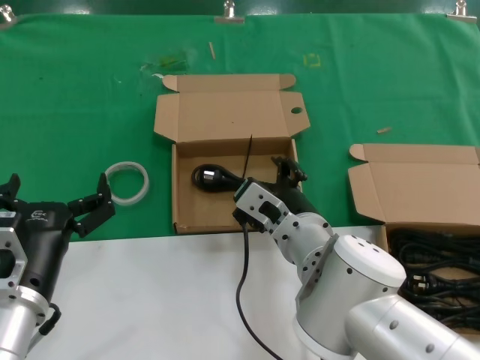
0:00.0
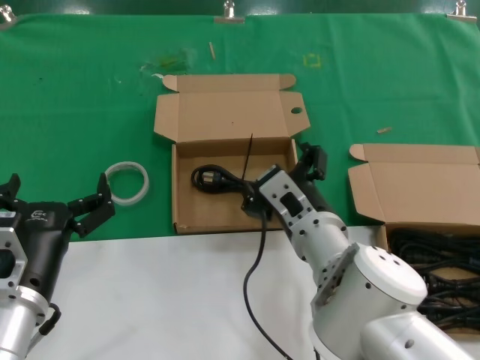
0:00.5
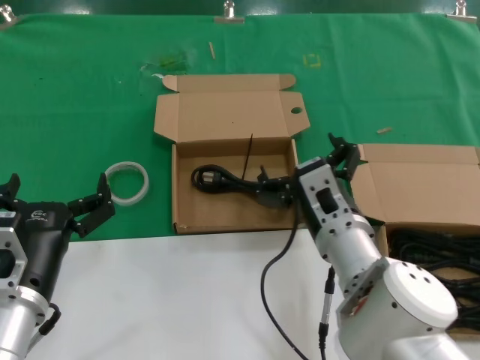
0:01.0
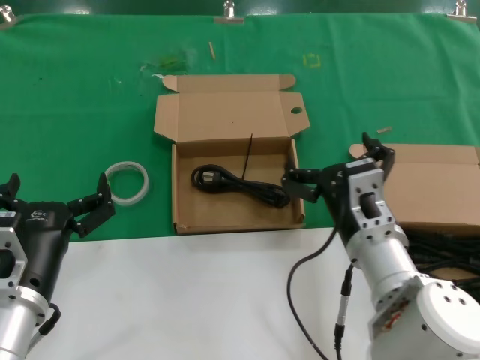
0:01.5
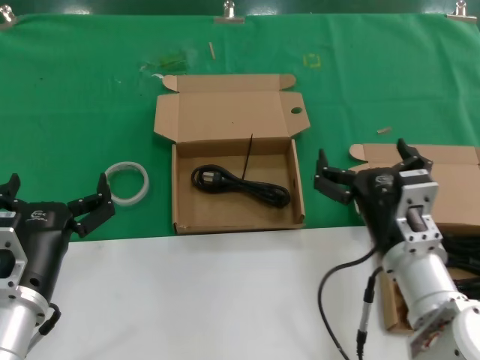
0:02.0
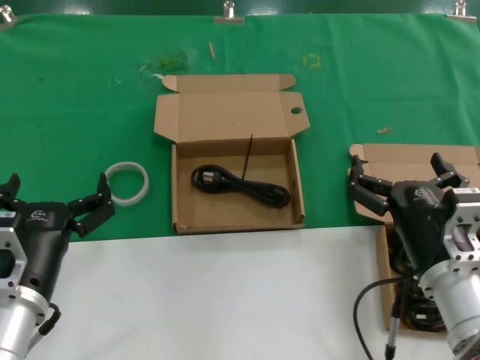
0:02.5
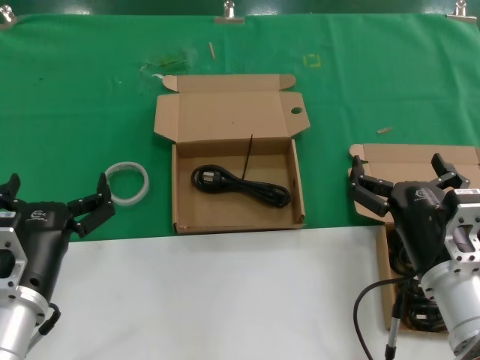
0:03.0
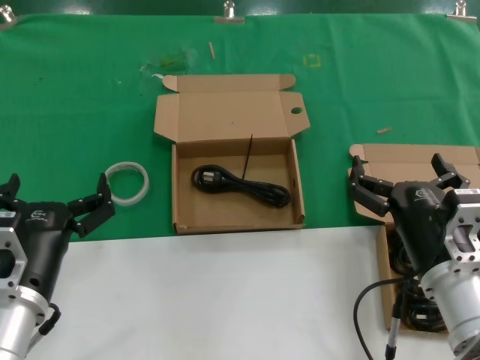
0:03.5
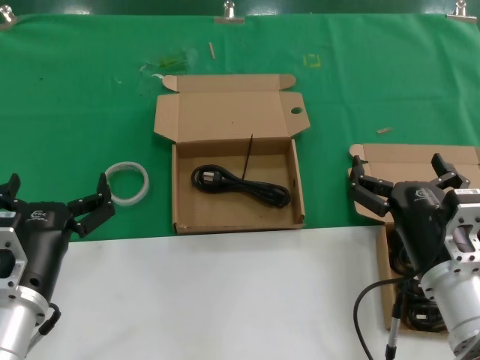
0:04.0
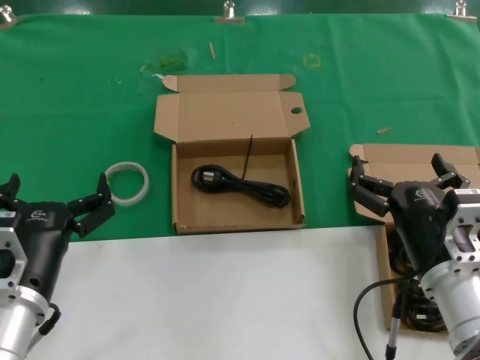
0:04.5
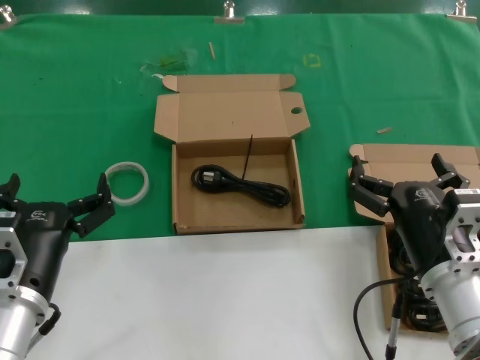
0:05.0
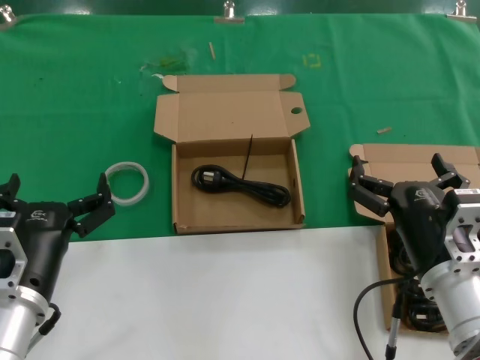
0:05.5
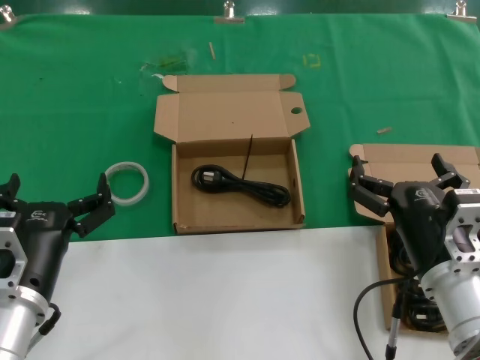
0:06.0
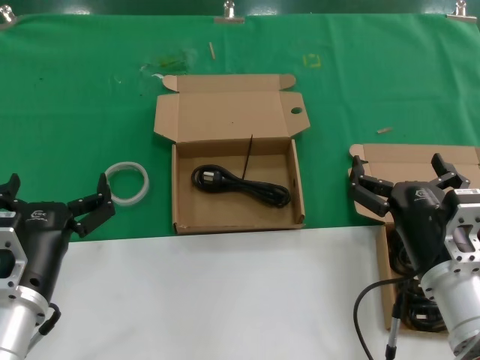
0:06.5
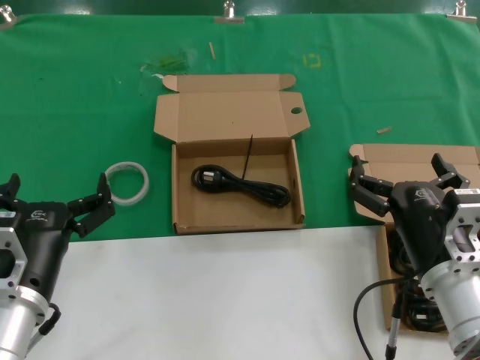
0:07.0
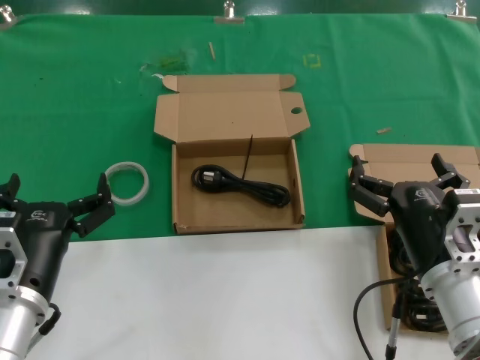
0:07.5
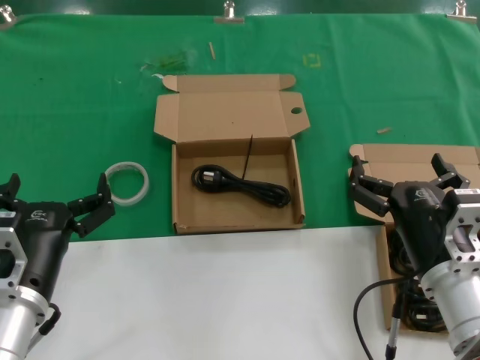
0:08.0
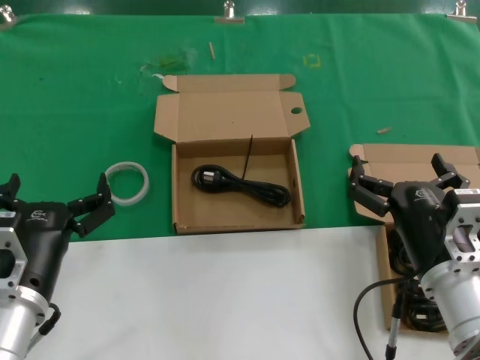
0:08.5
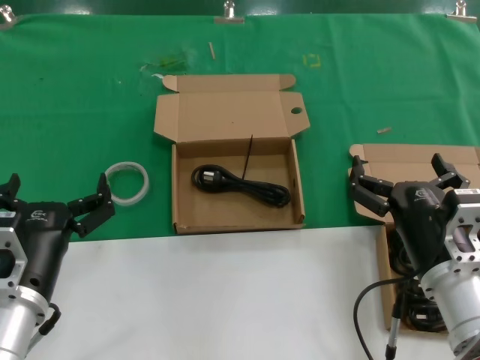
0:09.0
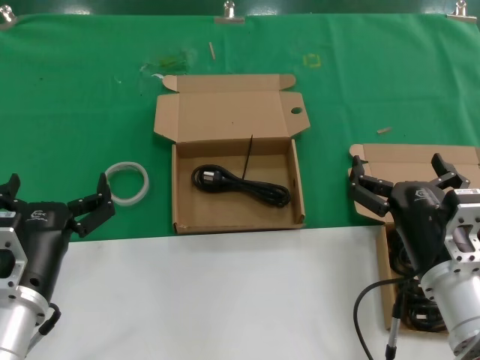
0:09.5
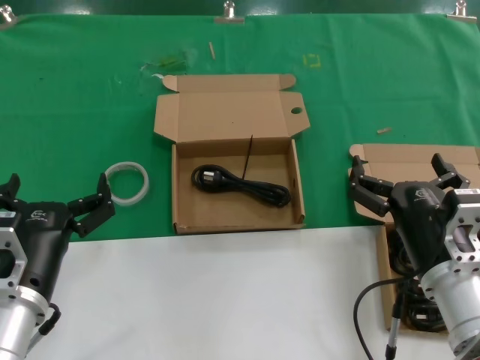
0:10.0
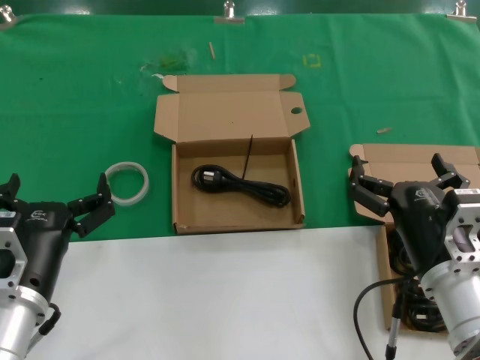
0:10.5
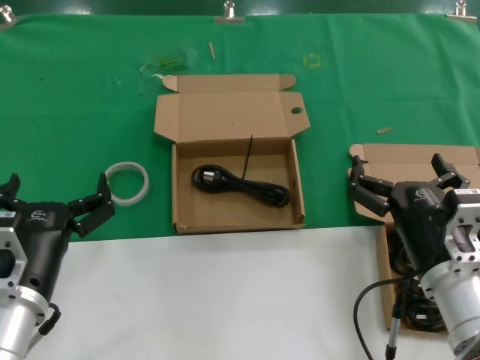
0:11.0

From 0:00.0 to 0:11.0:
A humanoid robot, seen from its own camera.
Task of the whole recording: take the parts from the box containing them and put them into an empty box.
From 0:00.0 to 0:02.0: The right hand is displaced to the right and backward by approximately 15 cm.
From 0:02.0 to 0:03.5: The right hand changes place by about 5 cm.
From 0:03.5 to 0:11.0: Both hands stay about where they are.

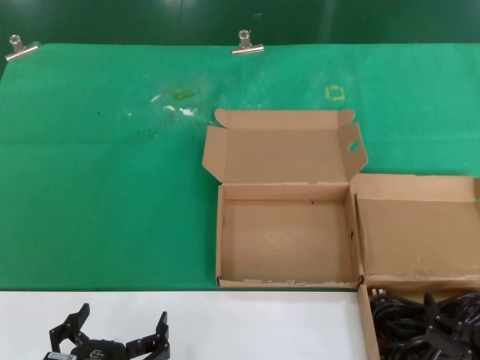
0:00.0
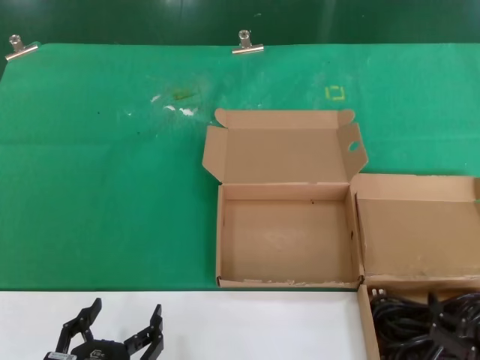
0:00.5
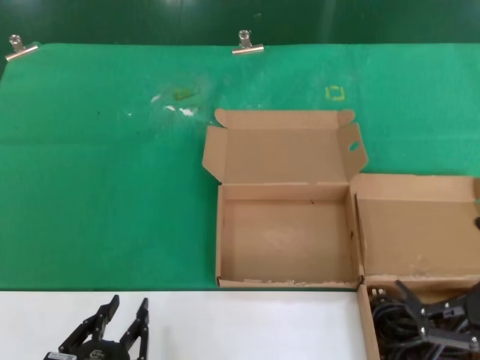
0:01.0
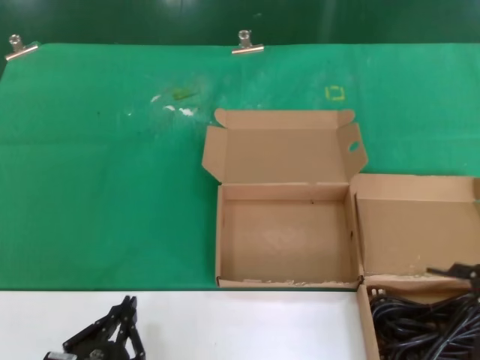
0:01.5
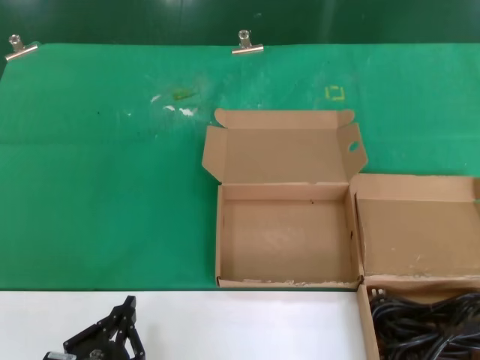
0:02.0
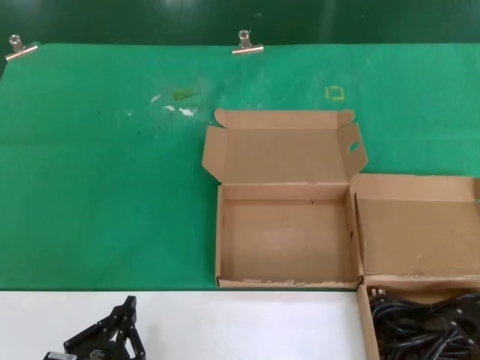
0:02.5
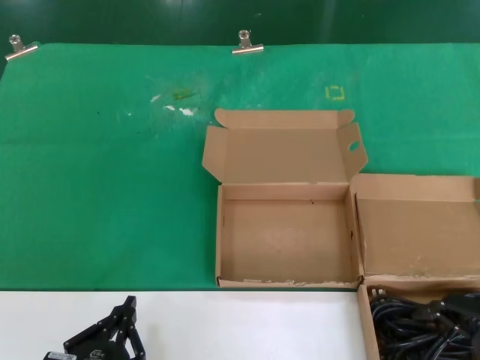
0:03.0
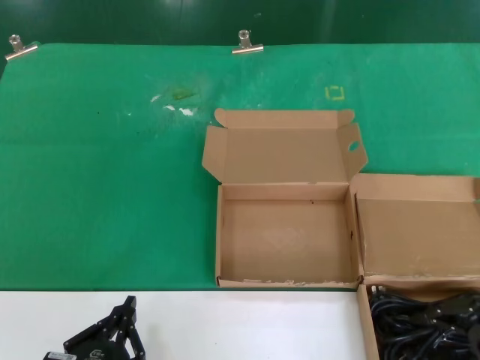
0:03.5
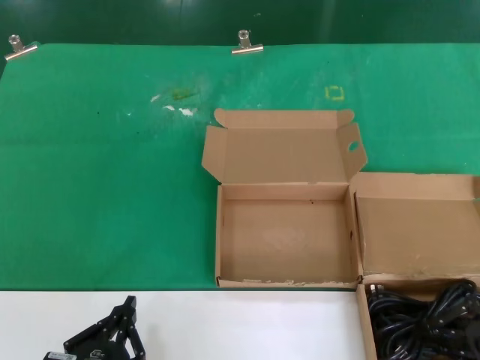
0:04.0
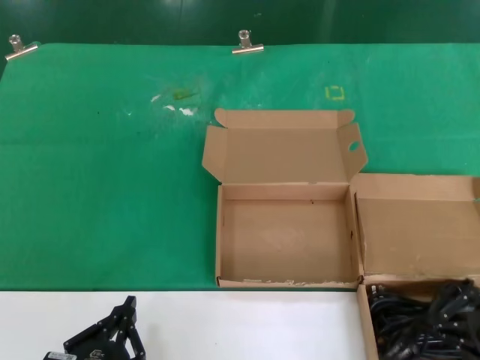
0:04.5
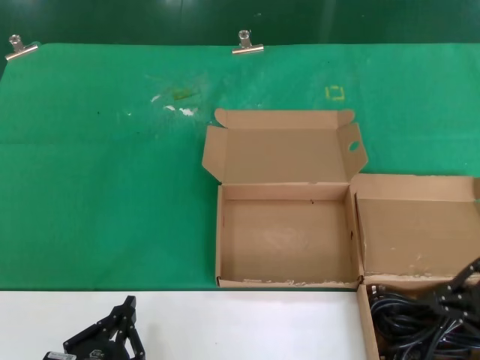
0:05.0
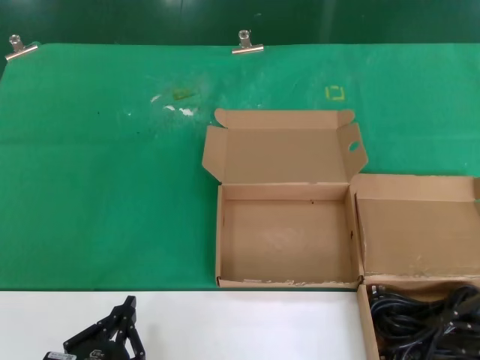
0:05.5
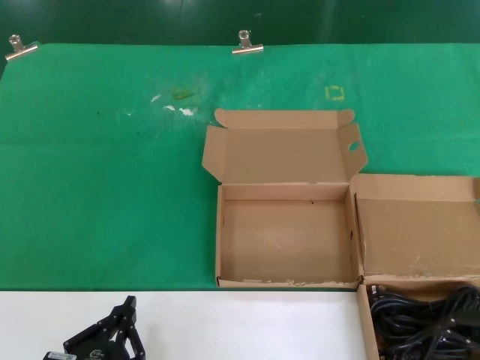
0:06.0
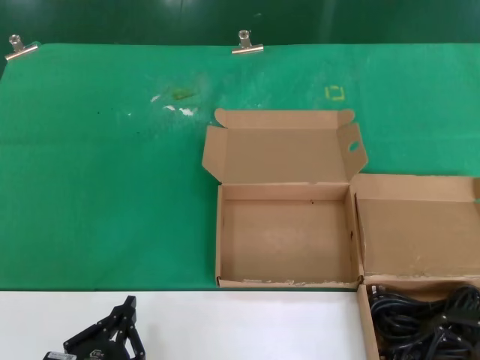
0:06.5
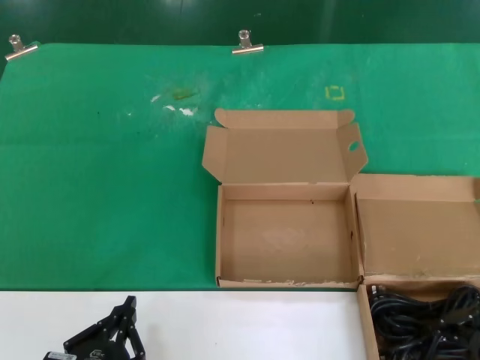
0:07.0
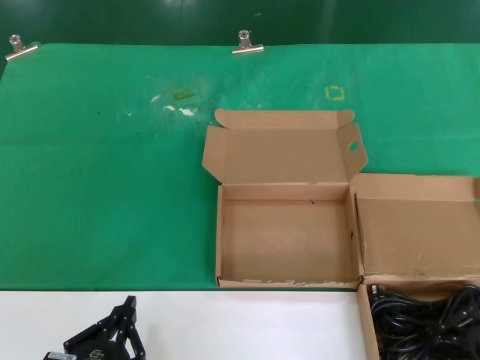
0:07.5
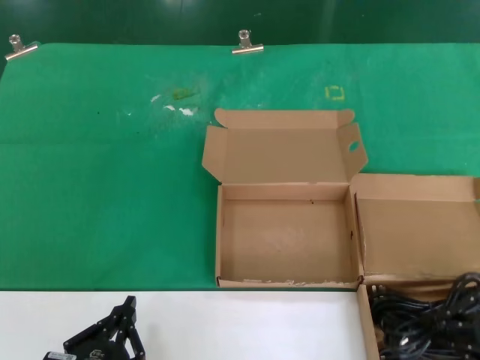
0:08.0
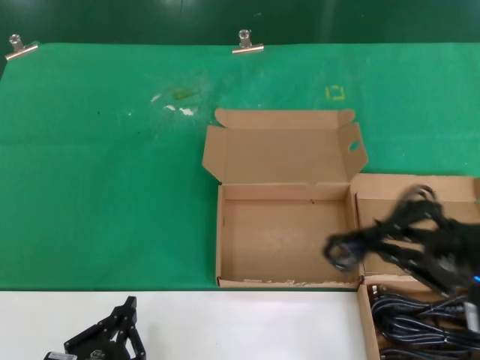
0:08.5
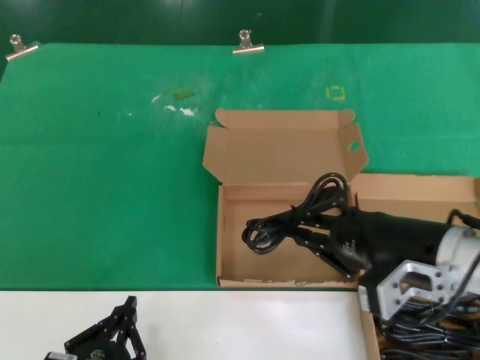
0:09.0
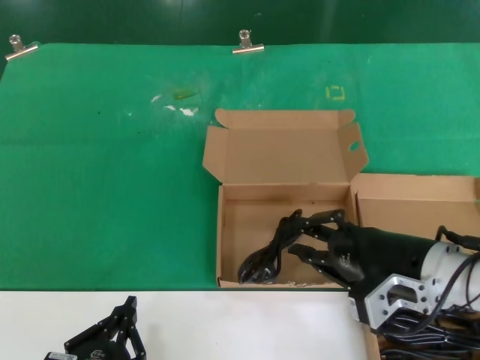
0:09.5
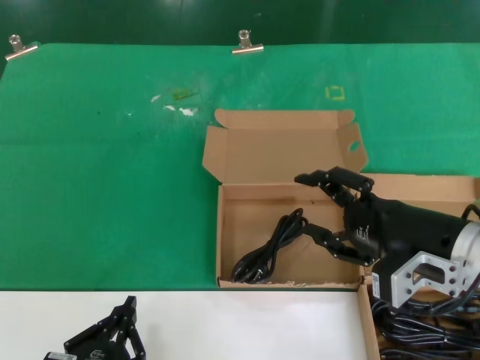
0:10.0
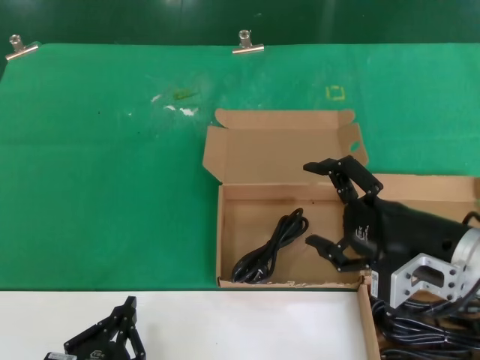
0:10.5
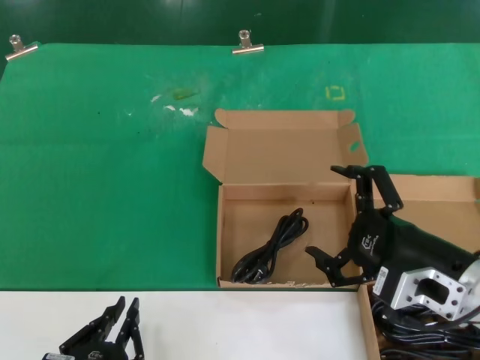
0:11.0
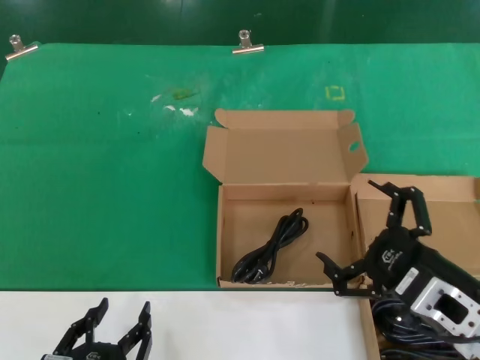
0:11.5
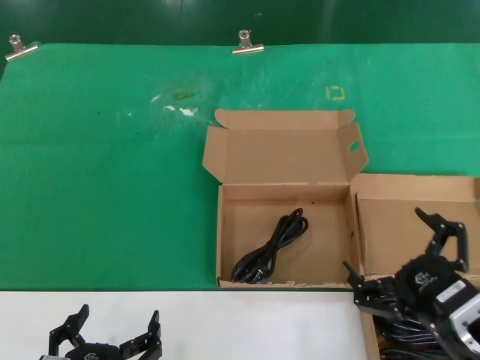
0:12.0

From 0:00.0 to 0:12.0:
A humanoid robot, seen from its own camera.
Task of the whole recording: take the parts from the box containing them and put them into an empty box.
Step, from 0:00.0 to 0:07.0: Grasp the data cable.
Step, from 0:08.0 to 0:10.0: Place the data cable in the another box.
From 0:00.0 to 0:02.0: The right hand is displaced upward and to the right by approximately 20 cm.
From 0:02.0 to 0:04.0: The right hand travels forward by some 5 cm.
From 0:04.0 to 0:08.0: The hands stay close to where they were, moving slightly.
From 0:08.0 to 0:10.0: The right hand heads to the left and forward, covering about 15 cm.
From 0:10.0 to 0:12.0: The right hand moves downward and backward, some 15 cm.

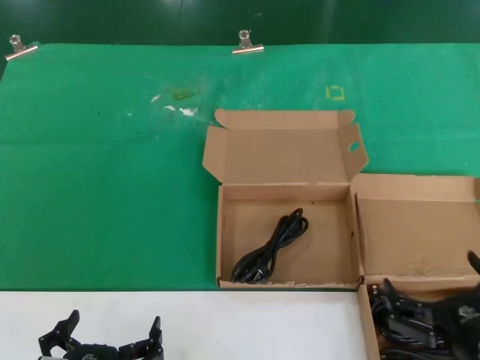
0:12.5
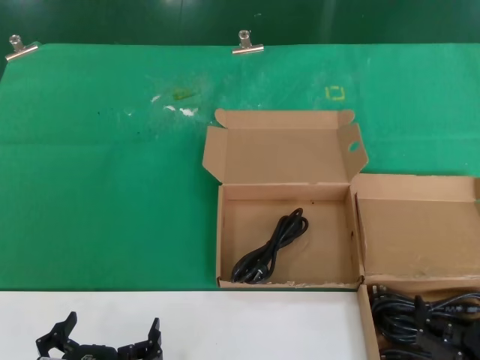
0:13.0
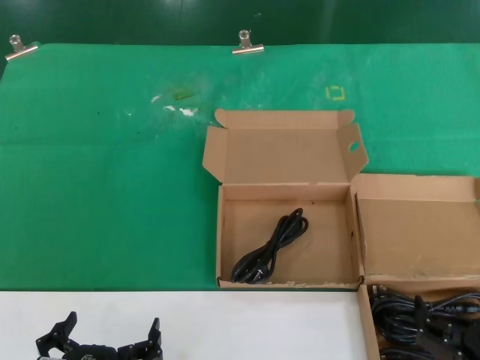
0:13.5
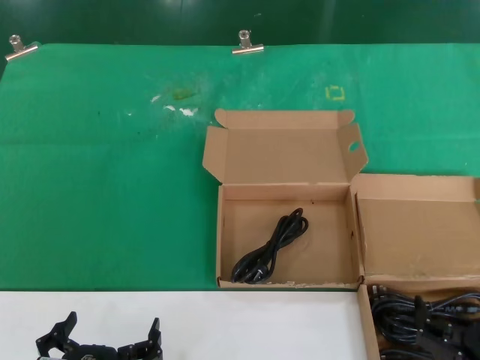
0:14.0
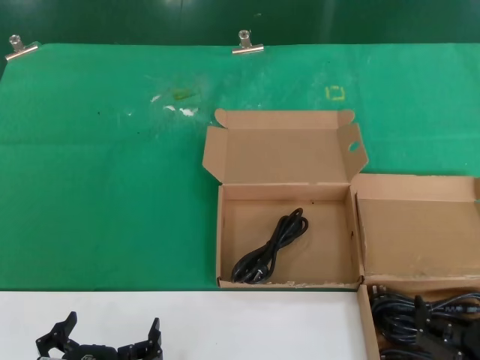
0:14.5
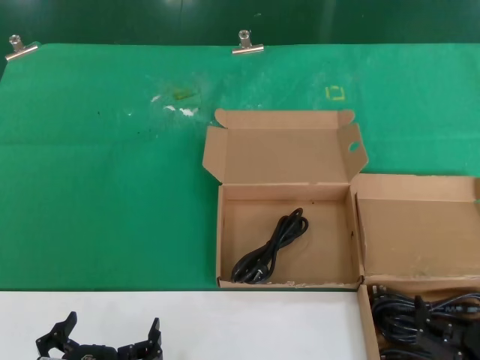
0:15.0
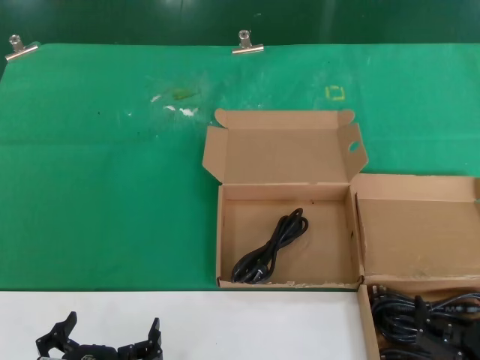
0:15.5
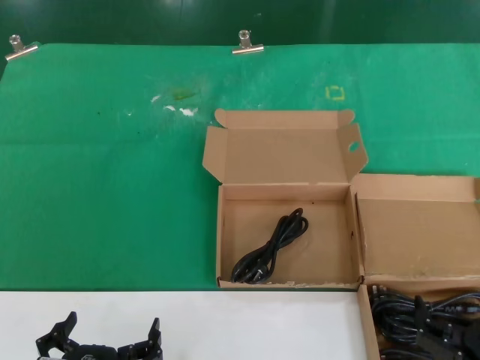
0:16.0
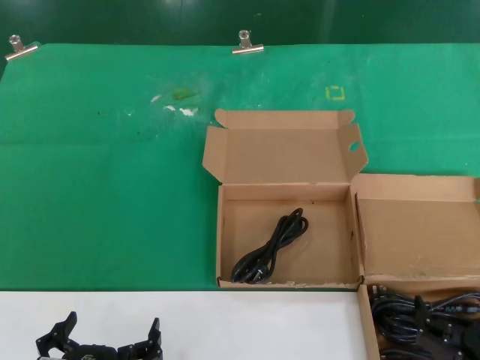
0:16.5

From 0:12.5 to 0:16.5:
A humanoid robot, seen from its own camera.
Task of the whole recording: take the parts from the box containing them and put them into an empty box.
From 0:12.5 to 0:14.5: The hands make only small movements.
From 0:14.5 to 0:16.5: Both hands stay put.
